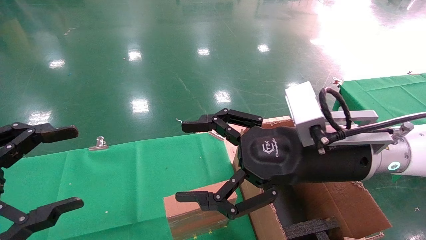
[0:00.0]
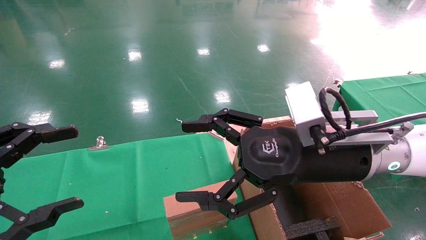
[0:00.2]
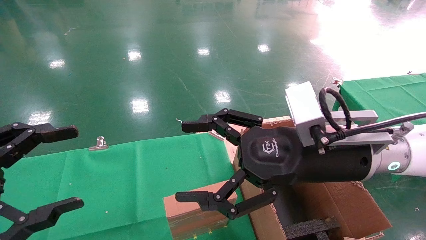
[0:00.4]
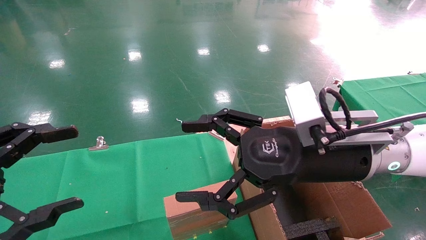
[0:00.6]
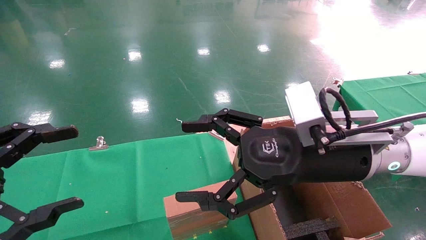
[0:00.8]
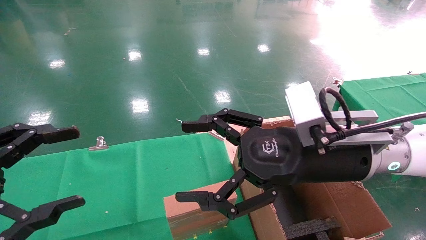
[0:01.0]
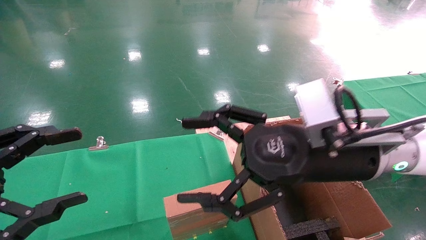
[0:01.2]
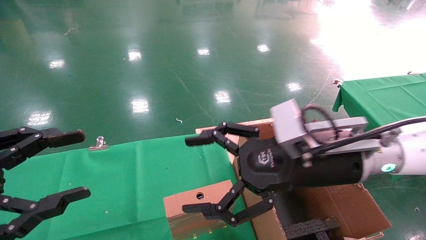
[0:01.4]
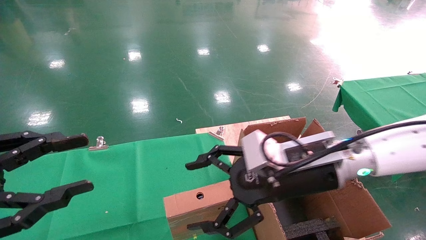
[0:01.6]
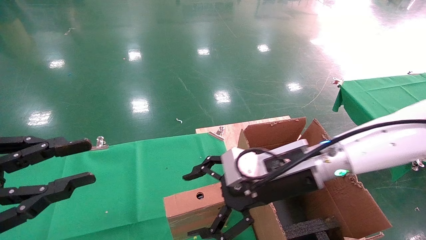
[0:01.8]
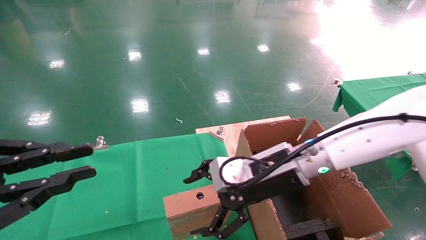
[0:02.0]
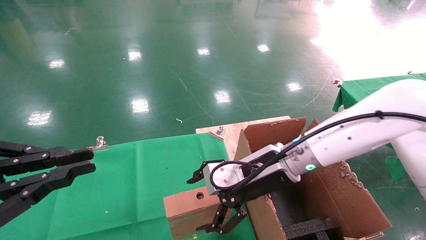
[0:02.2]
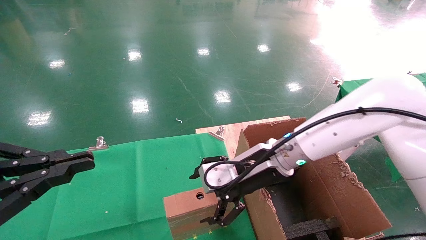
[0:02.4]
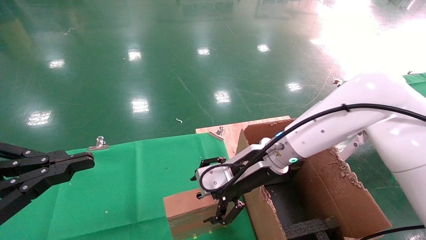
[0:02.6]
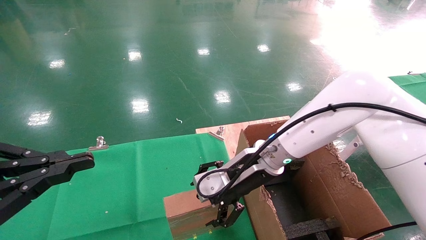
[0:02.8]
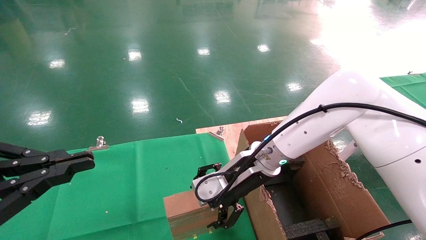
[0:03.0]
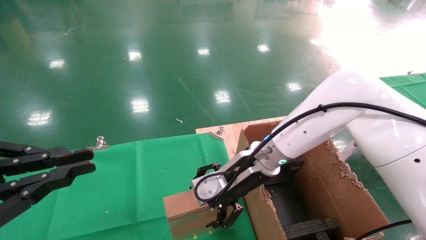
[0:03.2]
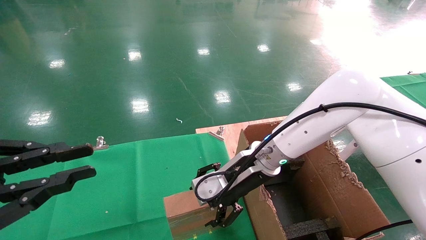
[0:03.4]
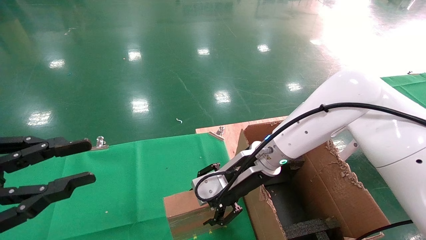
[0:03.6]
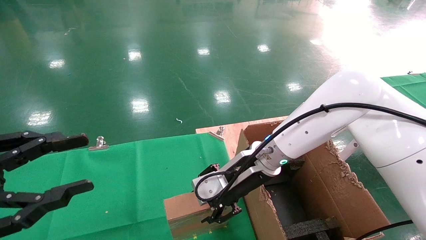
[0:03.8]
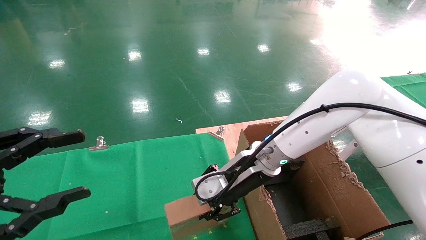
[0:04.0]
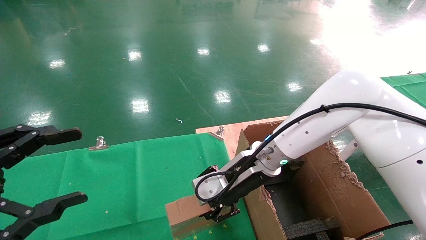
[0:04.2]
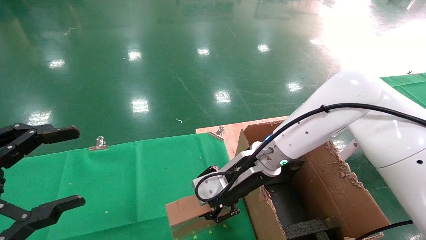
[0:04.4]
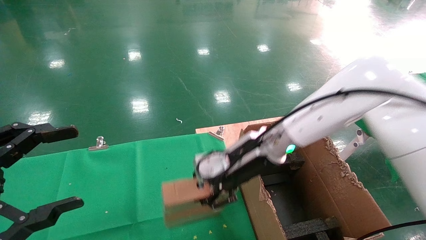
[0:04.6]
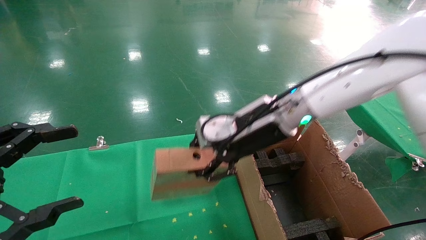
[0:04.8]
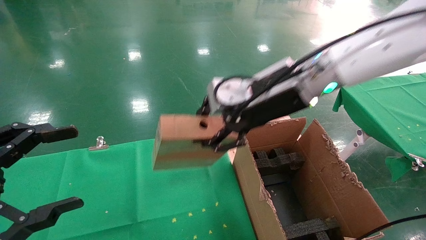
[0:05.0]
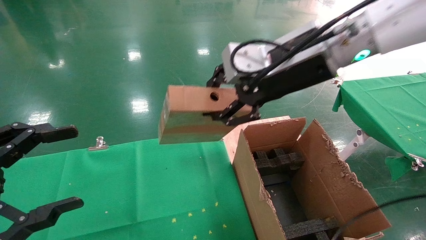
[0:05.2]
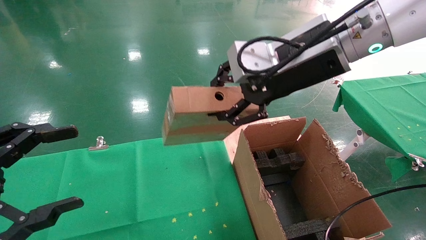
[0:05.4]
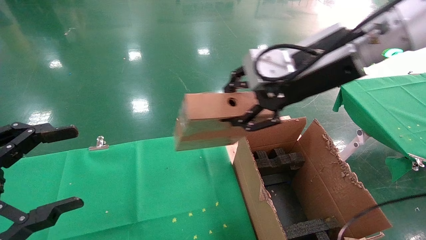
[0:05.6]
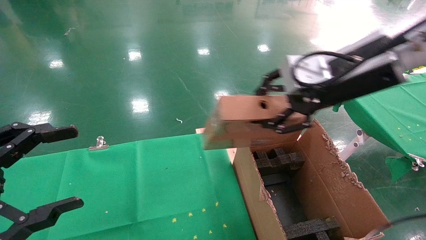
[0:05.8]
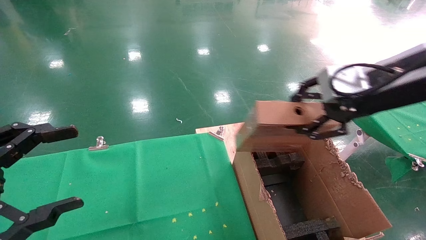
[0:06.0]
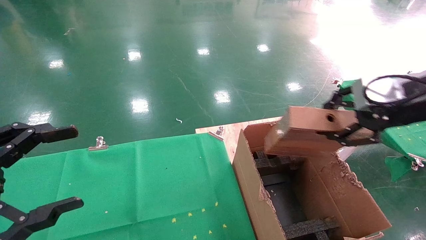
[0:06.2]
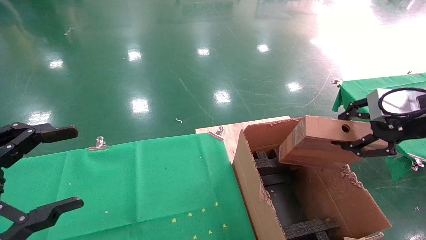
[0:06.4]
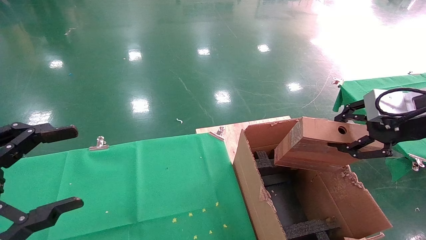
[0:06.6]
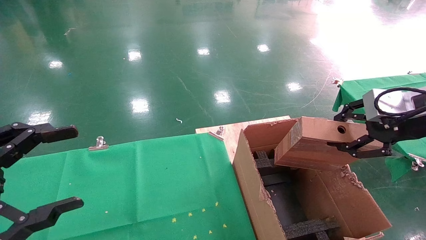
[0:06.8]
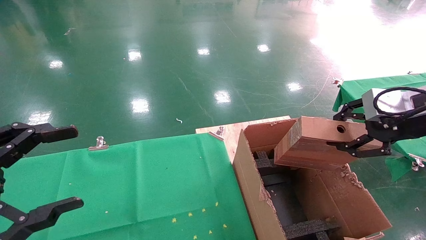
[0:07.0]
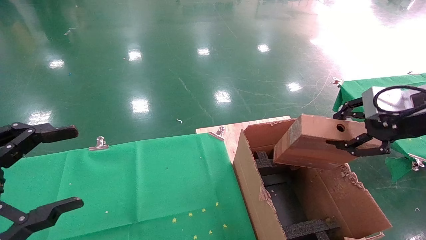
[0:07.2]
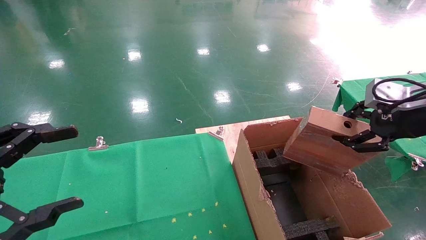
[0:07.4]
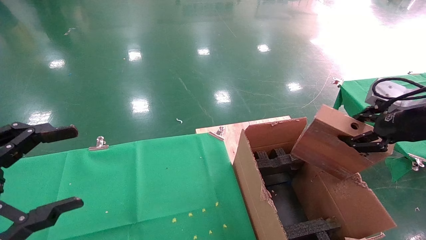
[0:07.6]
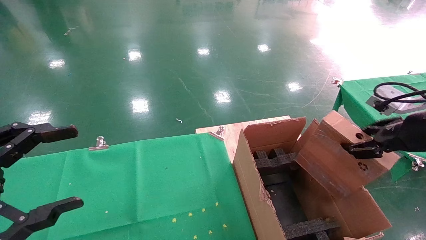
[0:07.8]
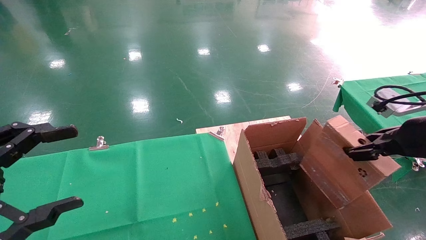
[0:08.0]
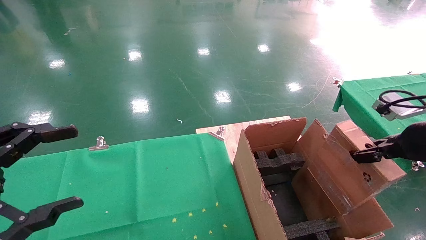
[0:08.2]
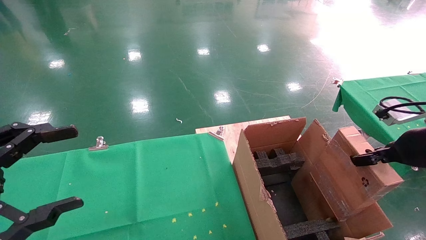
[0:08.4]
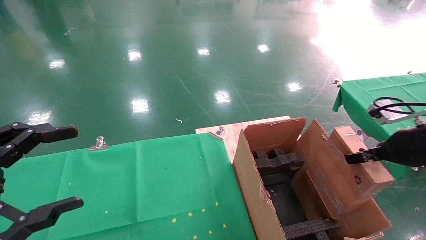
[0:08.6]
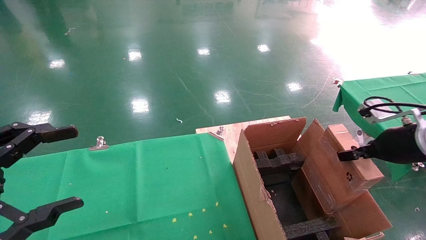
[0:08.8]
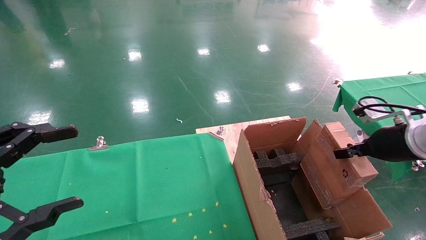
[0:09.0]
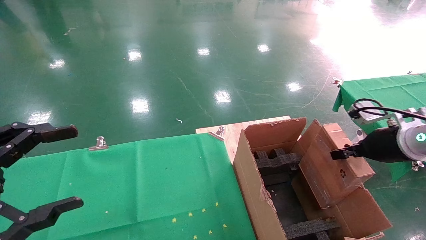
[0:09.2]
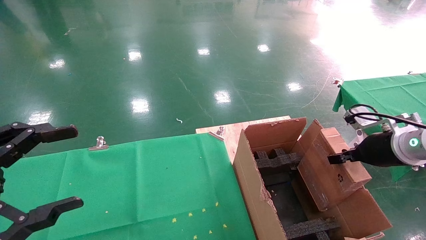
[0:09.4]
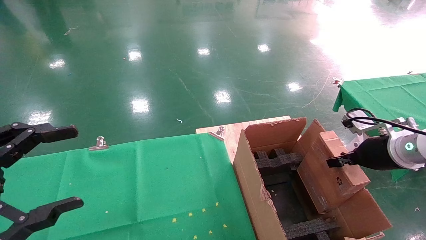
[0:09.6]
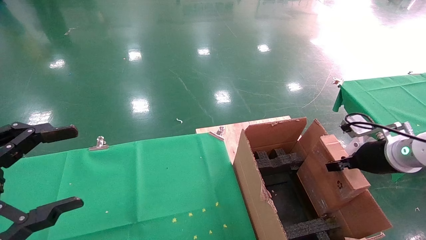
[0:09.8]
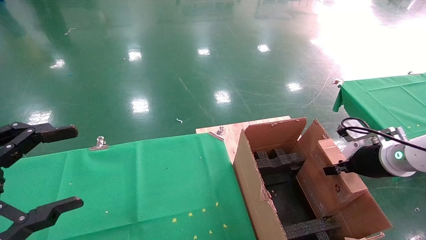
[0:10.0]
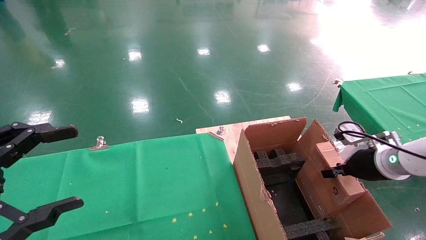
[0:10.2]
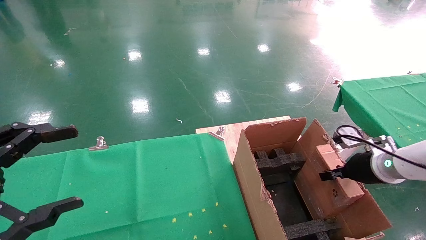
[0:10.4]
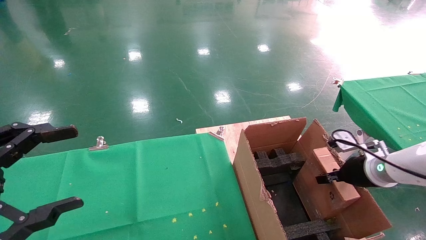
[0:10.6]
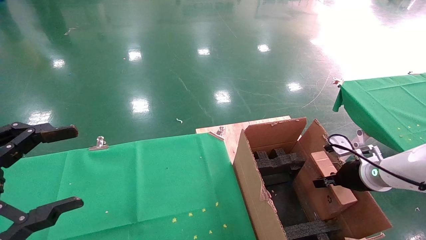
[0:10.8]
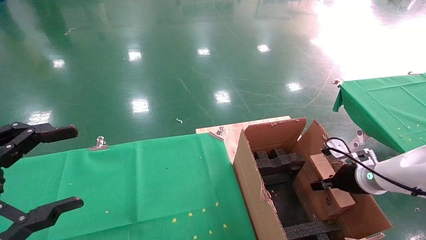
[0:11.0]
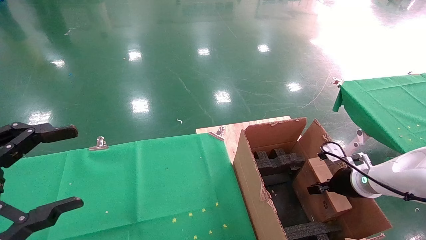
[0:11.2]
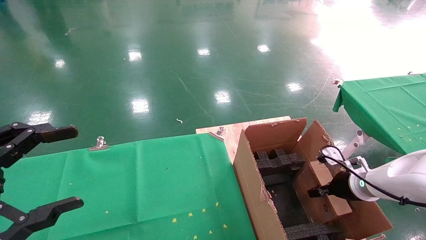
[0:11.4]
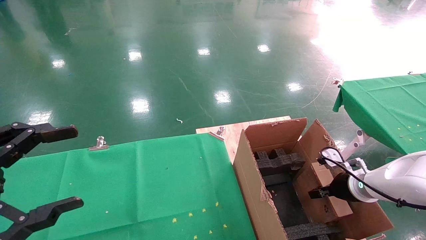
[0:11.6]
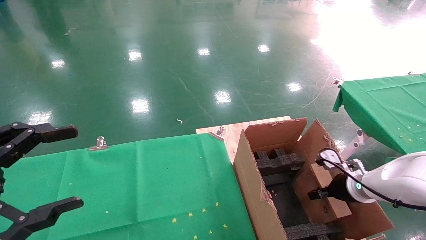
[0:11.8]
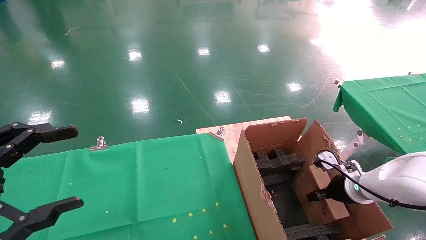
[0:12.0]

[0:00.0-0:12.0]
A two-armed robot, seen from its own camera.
Task of the whole recording: using a robotic arm to pick up a cardboard box and palace it the carton.
Step, 0:01.6 to 0:04.0: Pick up the mouse and the power cord paper box.
0:00.0 to 0:01.6: The left gripper closes its fingers. Meanwhile the right gripper shifts by some 5 cm.
0:01.6 to 0:03.0: The left gripper closes up; the right gripper moves forward and to the left, roughly 10 cm.
0:03.0 to 0:04.4: The right gripper closes; the left gripper opens up.
0:04.4 to 0:06.0: The right gripper shifts about 25 cm to the right, upward and backward.
0:06.0 to 0:07.6: The right gripper moves to the right and downward, roughly 10 cm.
0:07.6 to 0:09.0: The right gripper moves downward, approximately 5 cm.
0:09.0 to 0:10.4: The right gripper is displaced downward by some 10 cm.
0:10.4 to 0:12.0: The right gripper moves downward, about 10 cm.

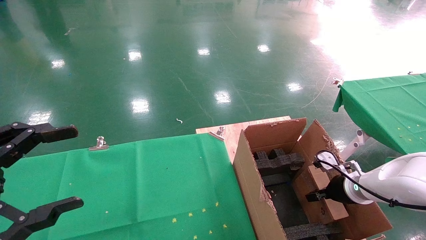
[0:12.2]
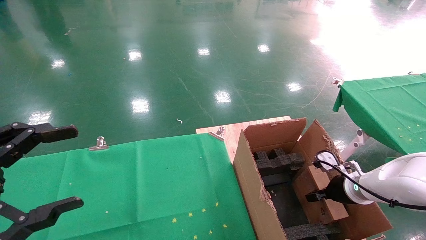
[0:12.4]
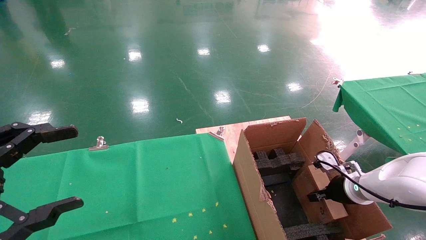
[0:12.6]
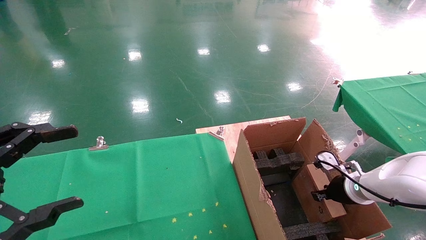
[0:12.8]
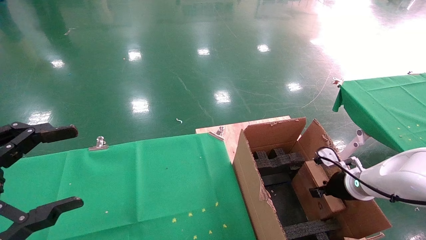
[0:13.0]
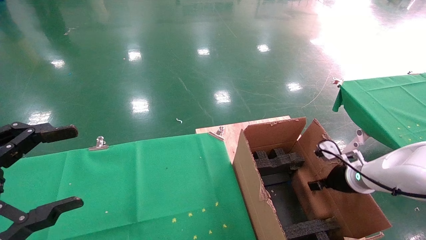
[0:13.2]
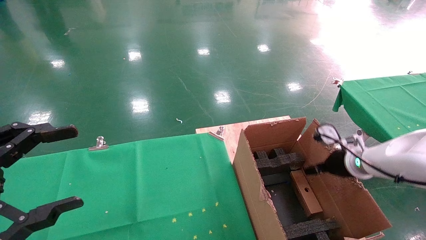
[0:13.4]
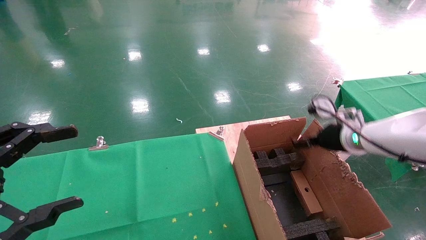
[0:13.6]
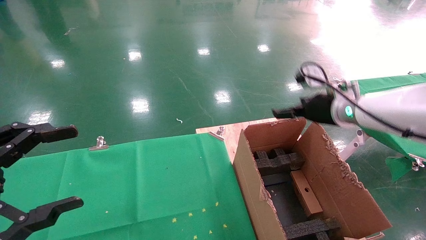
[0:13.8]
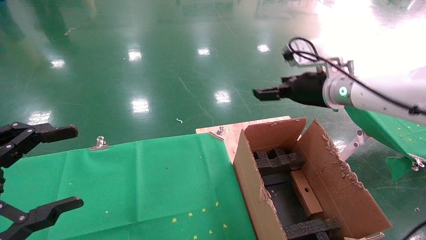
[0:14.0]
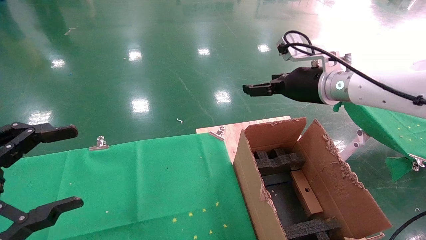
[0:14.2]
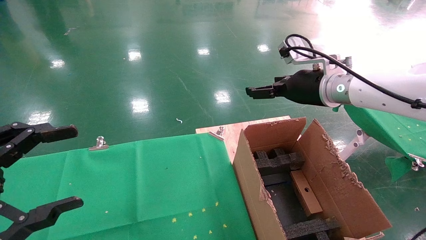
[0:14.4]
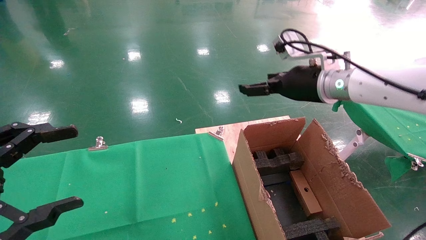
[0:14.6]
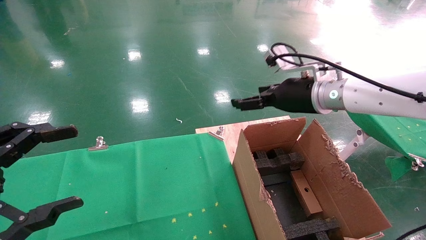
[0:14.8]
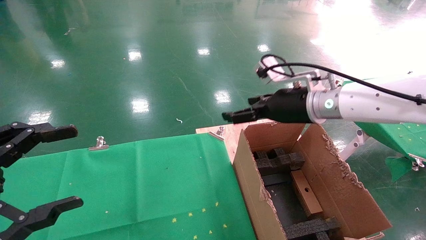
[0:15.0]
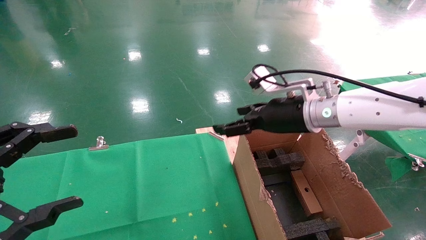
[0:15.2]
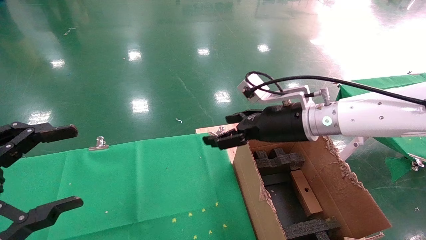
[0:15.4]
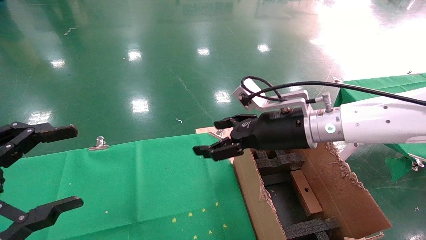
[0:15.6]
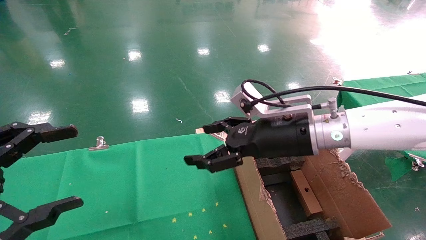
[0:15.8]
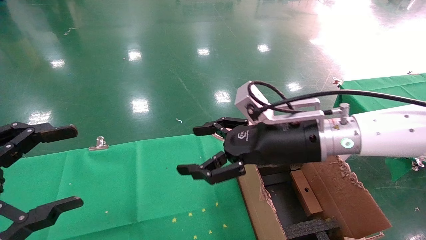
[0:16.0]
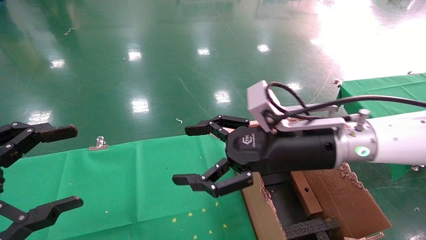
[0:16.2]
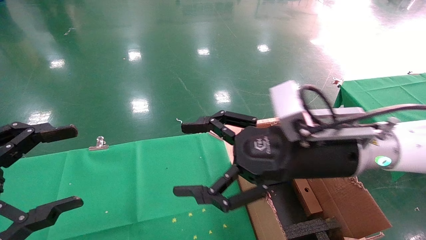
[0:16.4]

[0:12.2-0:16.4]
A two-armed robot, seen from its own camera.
Task of the whole recording: using a robotic arm to pick up a cardboard box and palace it the carton.
0:12.2 to 0:13.6: The right gripper shifts some 15 cm upward, and opens.
0:13.6 to 0:15.0: The right gripper shifts approximately 15 cm to the left and upward.
0:15.0 to 0:16.4: The right gripper heads backward, covering roughly 10 cm.
